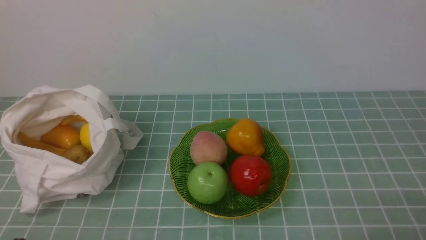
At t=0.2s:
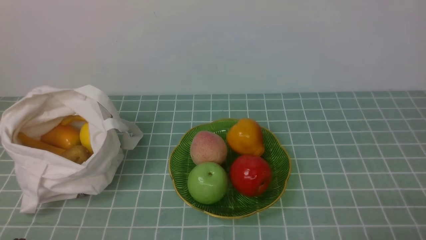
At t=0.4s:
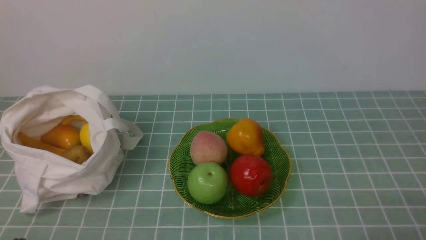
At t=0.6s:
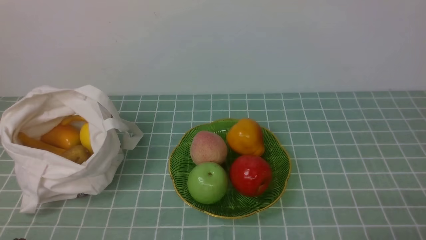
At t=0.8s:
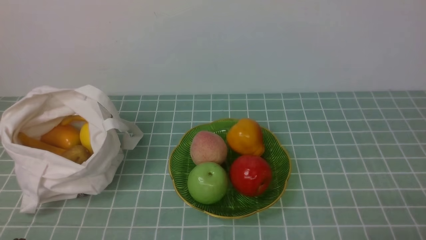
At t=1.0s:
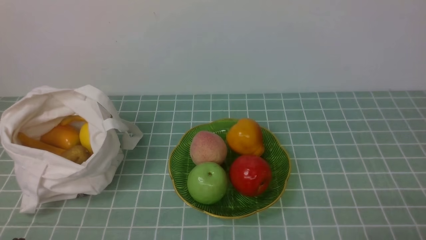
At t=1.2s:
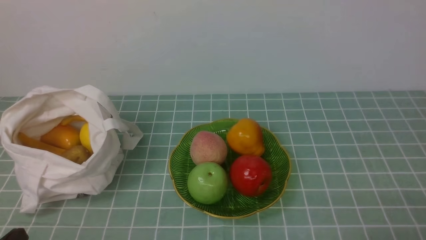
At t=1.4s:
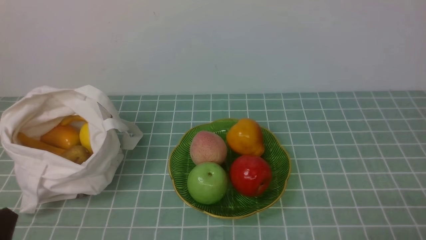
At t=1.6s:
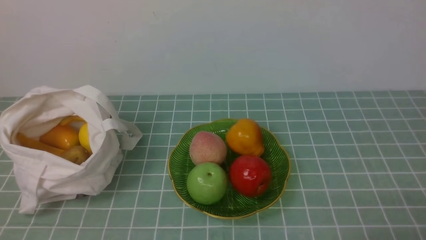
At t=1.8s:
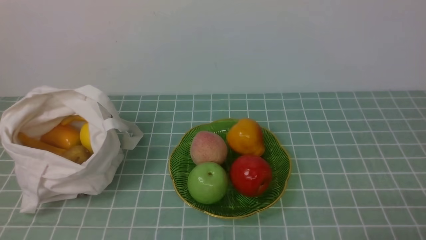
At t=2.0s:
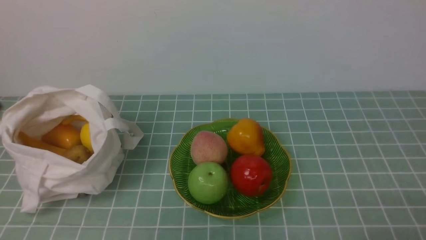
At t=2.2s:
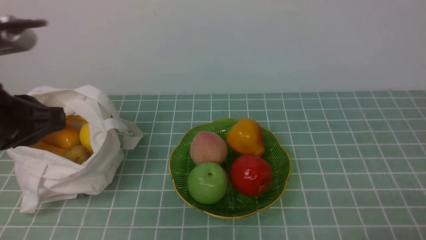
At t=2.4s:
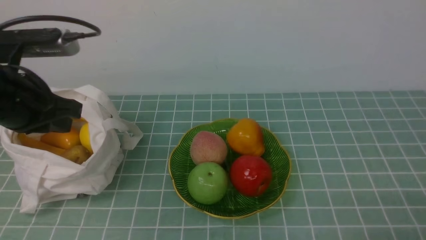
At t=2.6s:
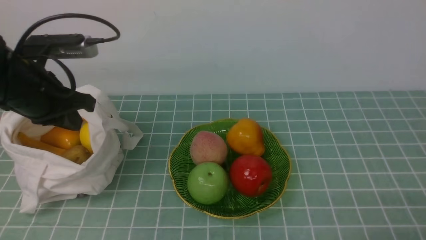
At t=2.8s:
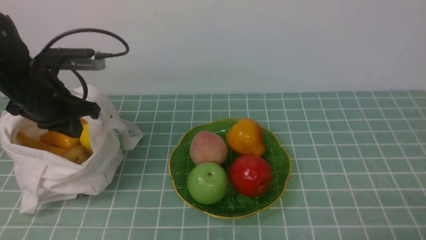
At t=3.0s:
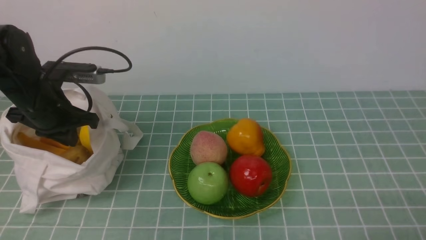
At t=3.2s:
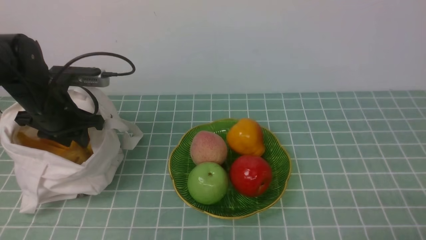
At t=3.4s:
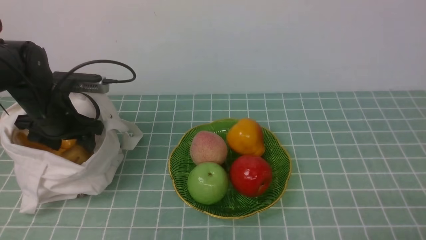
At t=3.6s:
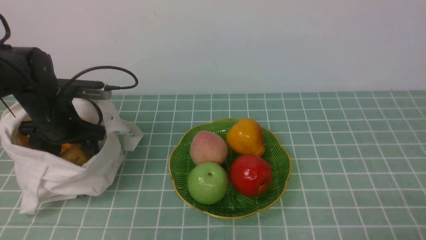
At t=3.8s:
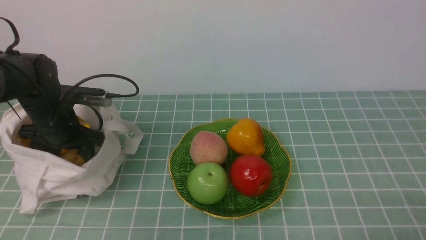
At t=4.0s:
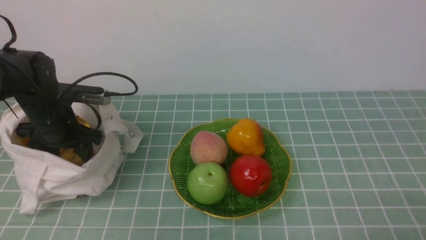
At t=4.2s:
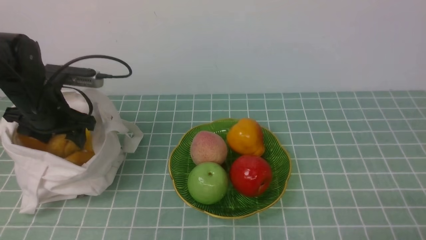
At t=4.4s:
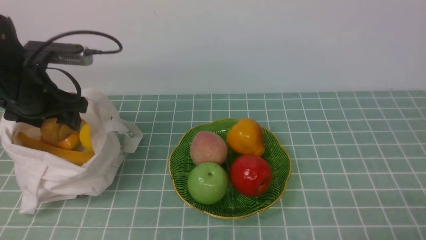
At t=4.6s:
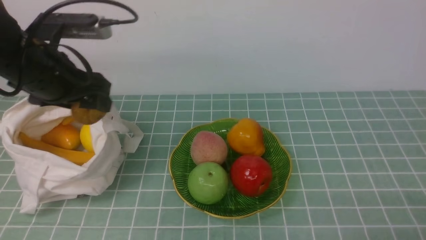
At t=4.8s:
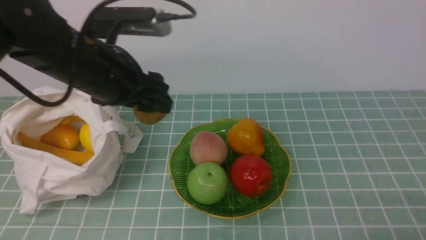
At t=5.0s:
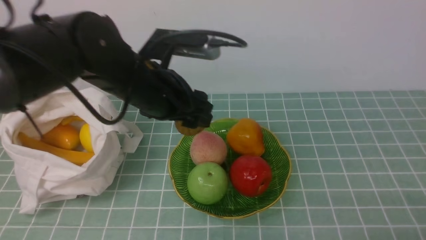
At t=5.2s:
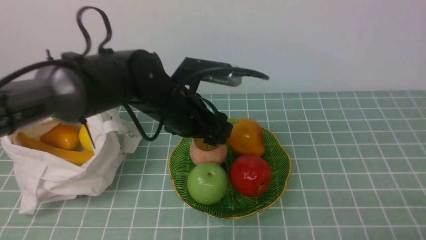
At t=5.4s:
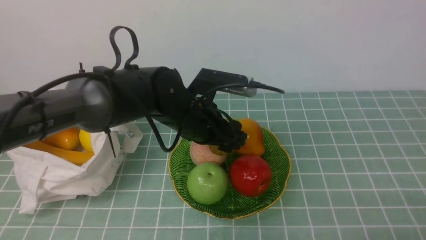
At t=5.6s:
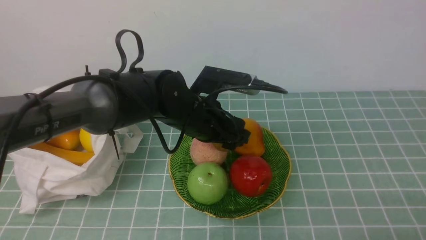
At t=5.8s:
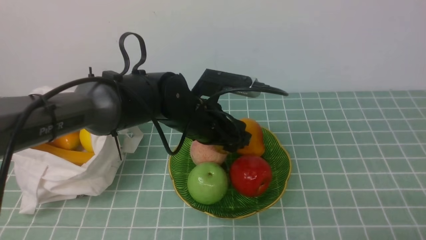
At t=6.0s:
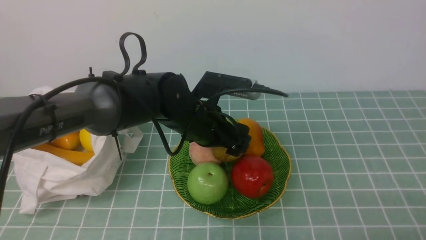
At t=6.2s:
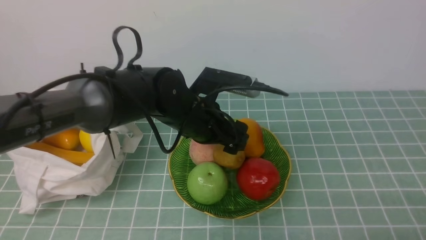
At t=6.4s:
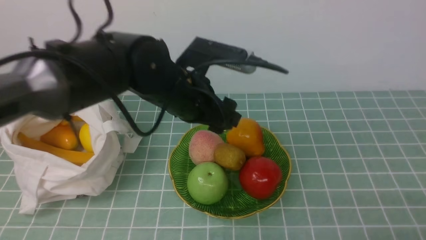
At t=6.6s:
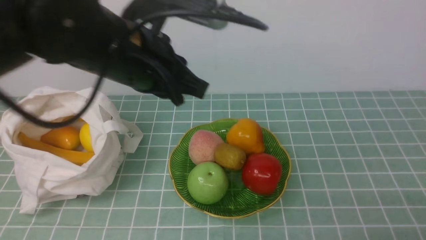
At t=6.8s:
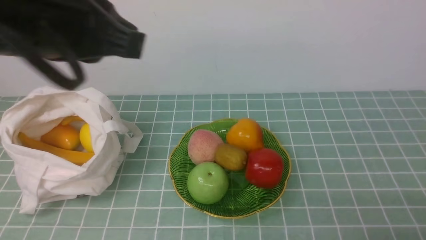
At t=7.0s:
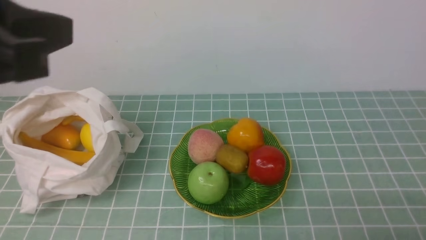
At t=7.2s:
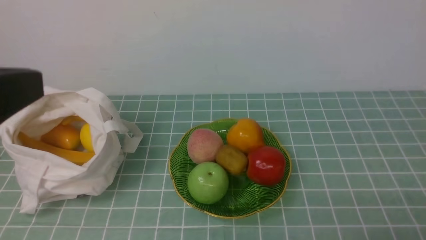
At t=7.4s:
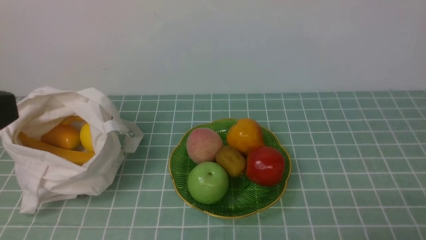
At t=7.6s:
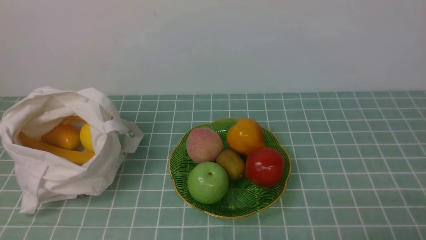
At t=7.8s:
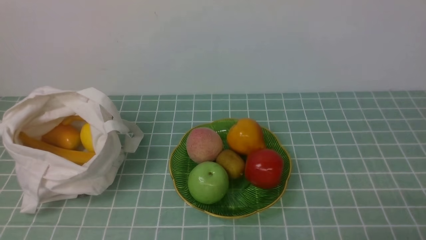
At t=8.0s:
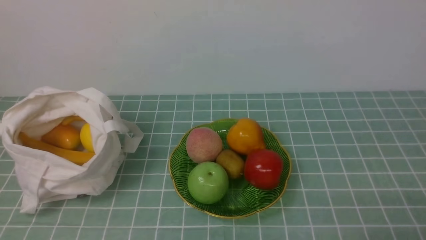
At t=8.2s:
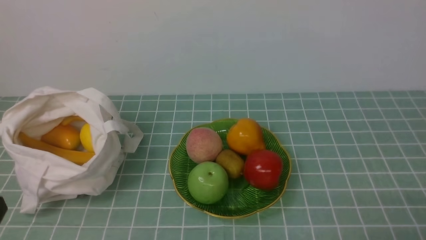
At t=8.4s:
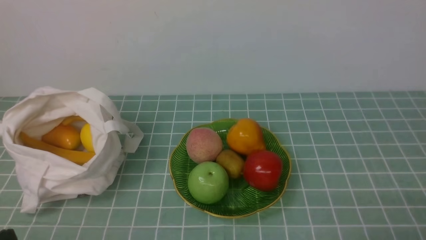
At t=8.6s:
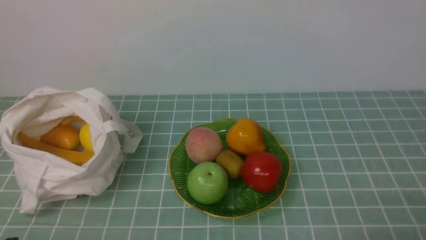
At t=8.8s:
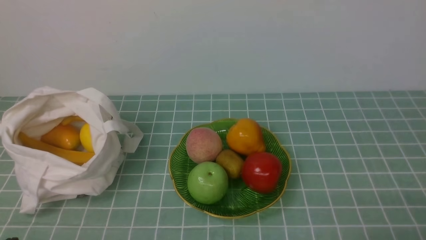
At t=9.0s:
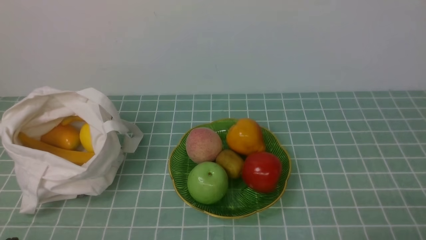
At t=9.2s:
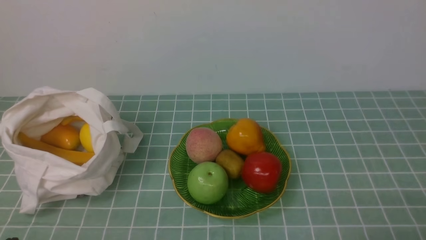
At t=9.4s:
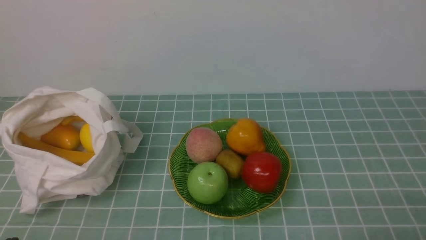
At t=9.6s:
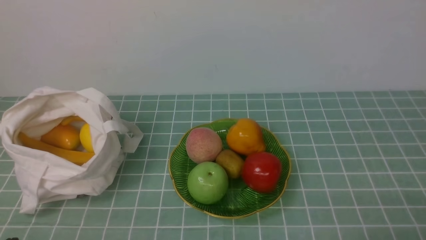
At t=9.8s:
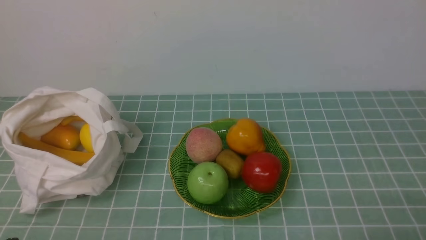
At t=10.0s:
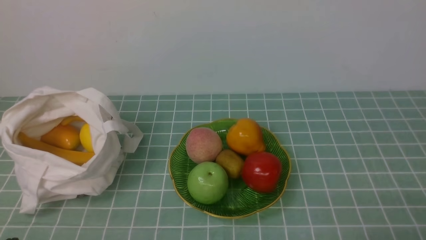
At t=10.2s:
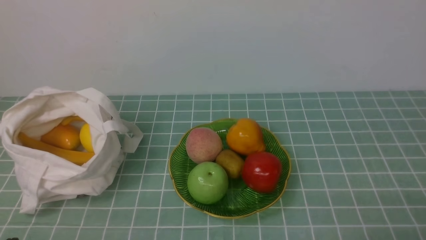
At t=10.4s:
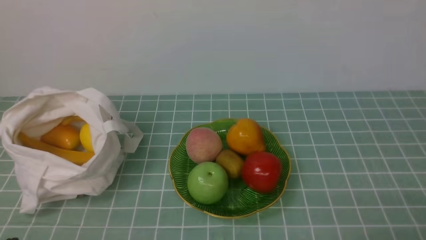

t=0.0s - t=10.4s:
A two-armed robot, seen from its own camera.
Step, t=0.0s - t=4.2s: use the left arm to grab a kiwi from the bag.
Step, t=4.6s - t=6.2s: use the left arm to put the kiwi into the empty plate on the right.
t=1.4s - t=3.0s: The left gripper heads forward, covering approximately 30 cm.
t=3.0s - t=4.4s: The left gripper opens up.
t=4.4s - t=6.0s: The left gripper heads to the right, covering roughly 25 cm.
t=6.0s - t=7.4s: The left gripper moves backward, upward and to the left, about 35 cm, and closes up.
t=7.4s - t=9.0s: The left gripper shifts about 25 cm downward.
t=9.0s - t=10.4s: The two grippers keep their place.
